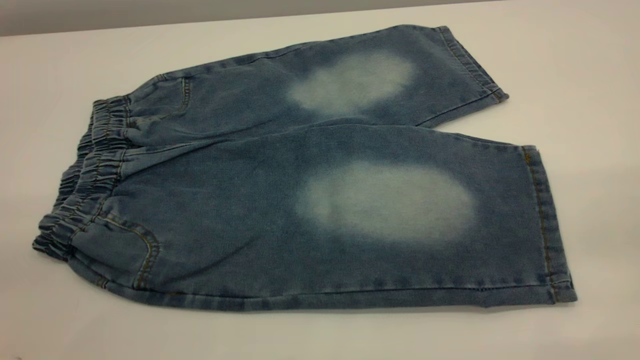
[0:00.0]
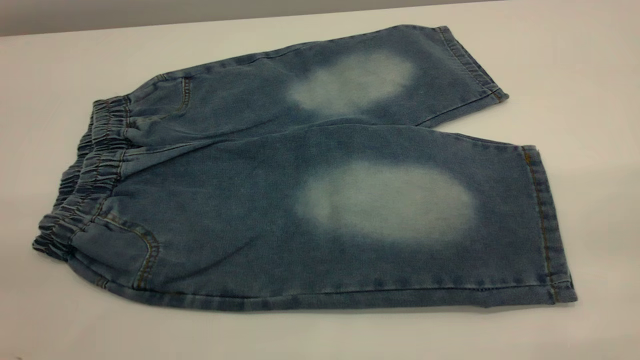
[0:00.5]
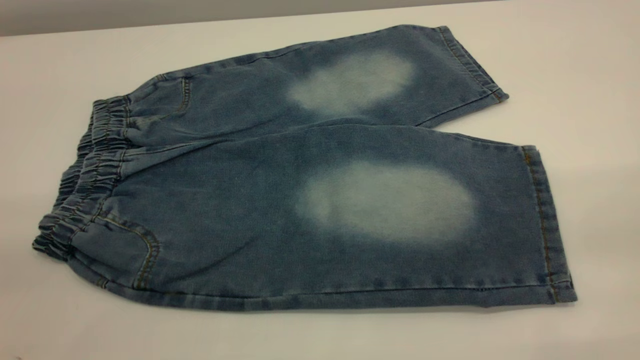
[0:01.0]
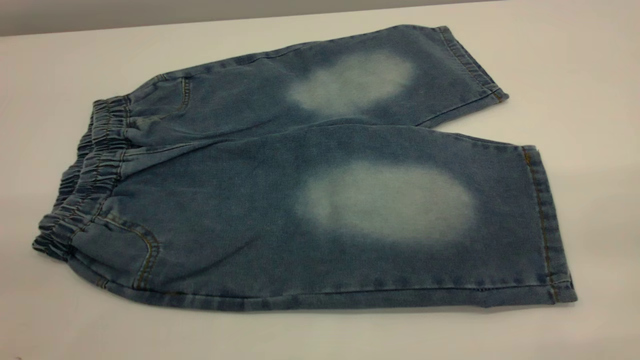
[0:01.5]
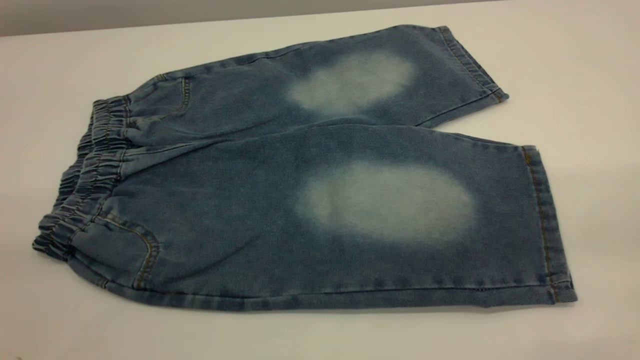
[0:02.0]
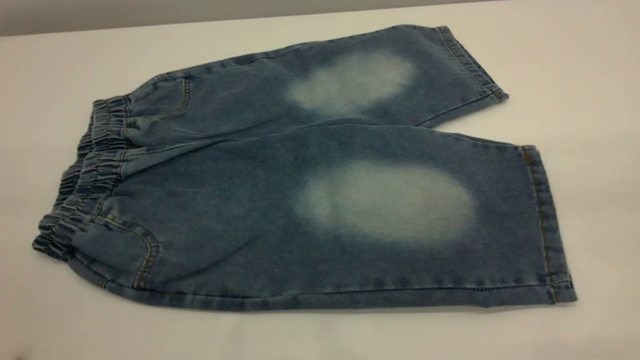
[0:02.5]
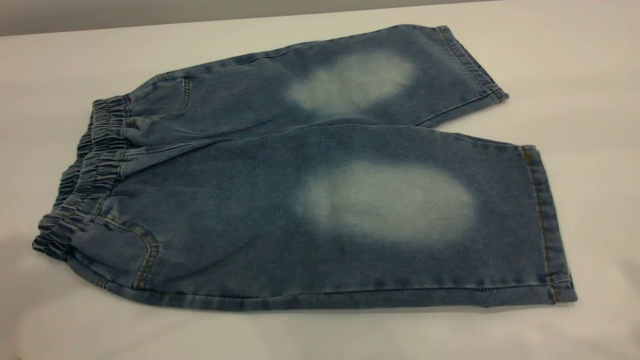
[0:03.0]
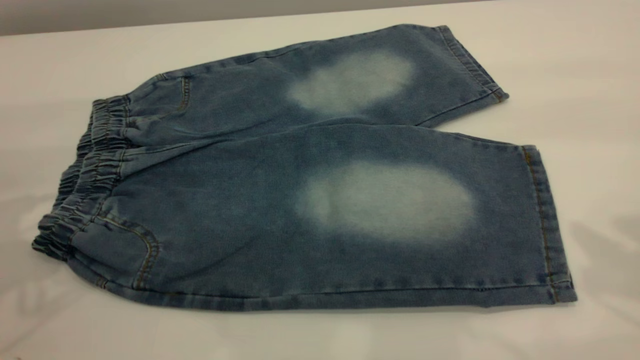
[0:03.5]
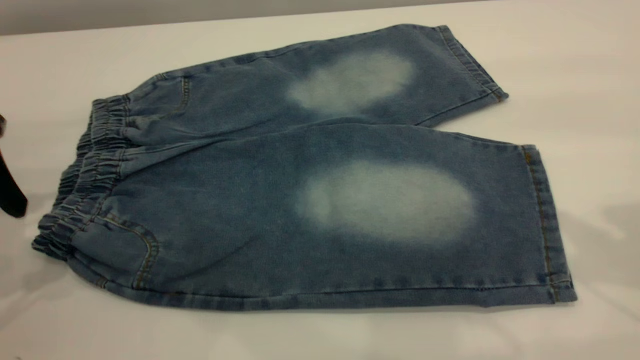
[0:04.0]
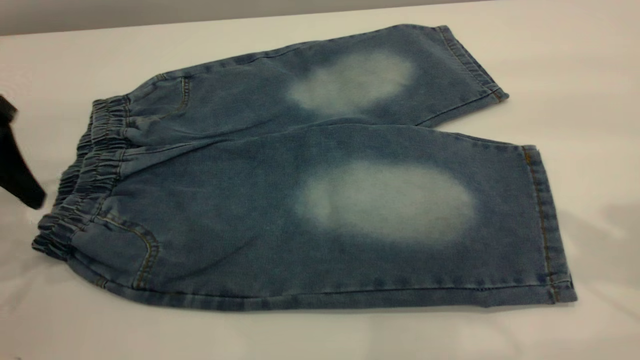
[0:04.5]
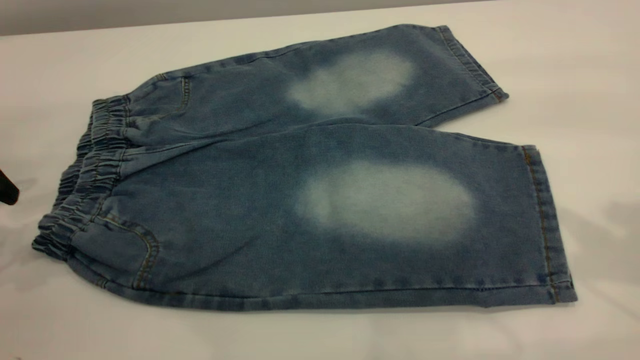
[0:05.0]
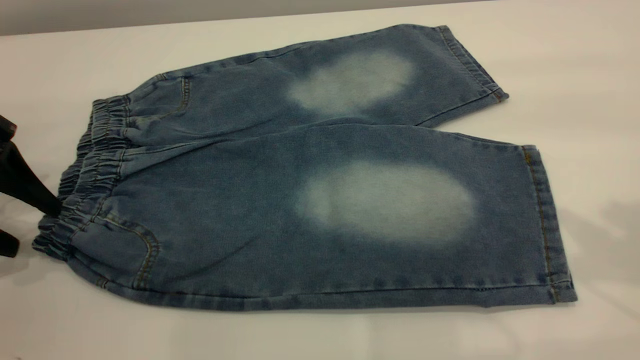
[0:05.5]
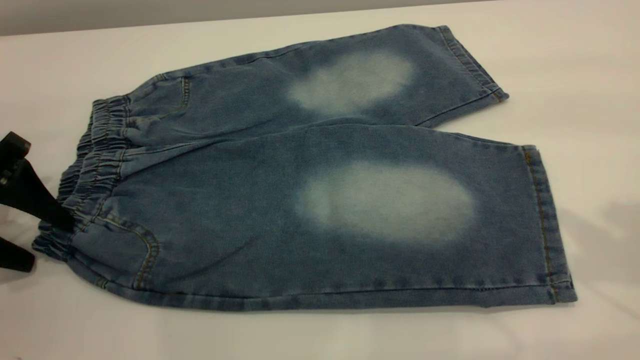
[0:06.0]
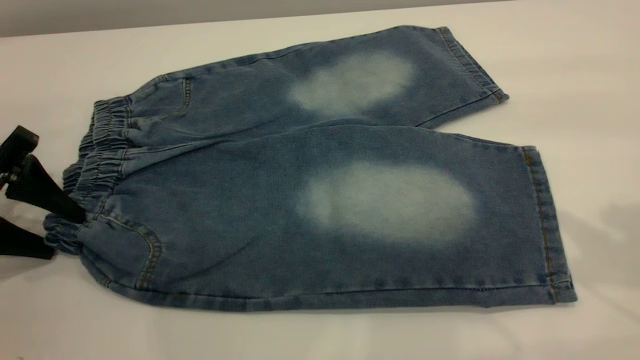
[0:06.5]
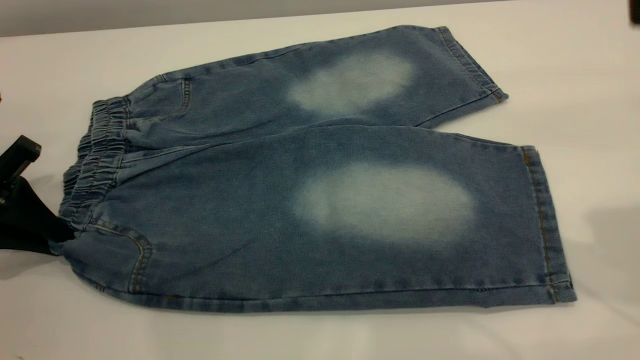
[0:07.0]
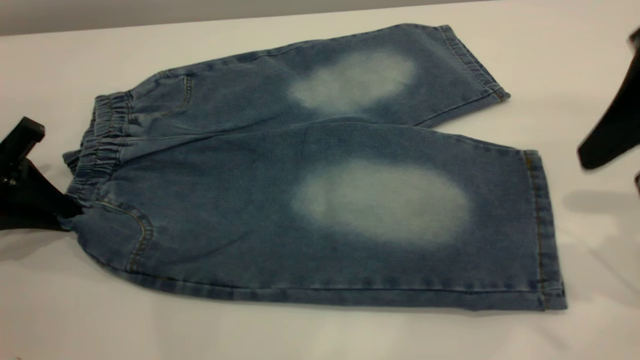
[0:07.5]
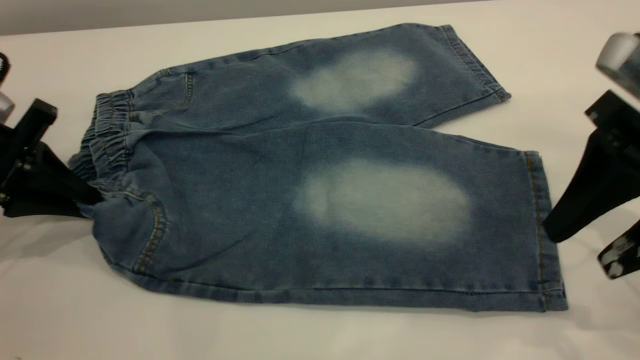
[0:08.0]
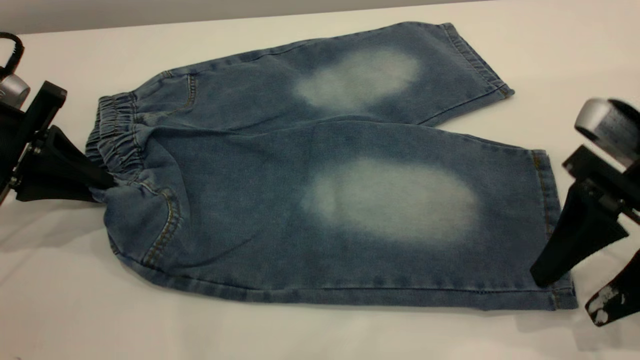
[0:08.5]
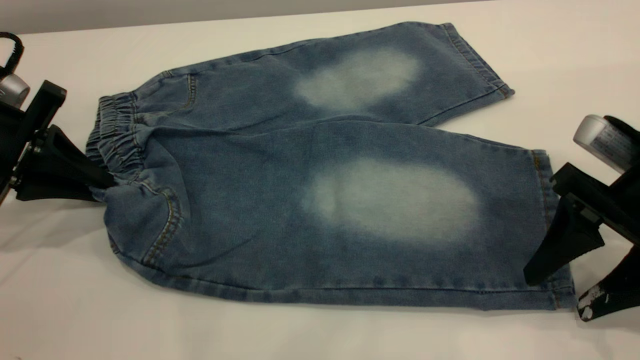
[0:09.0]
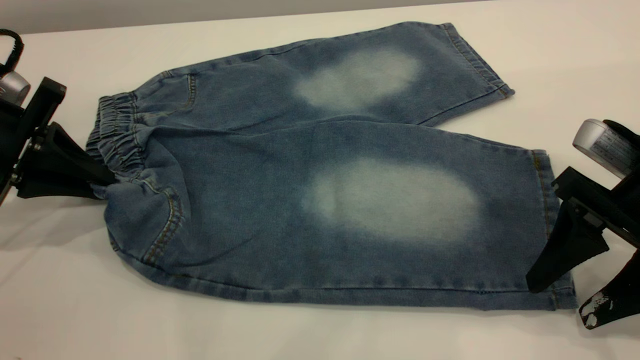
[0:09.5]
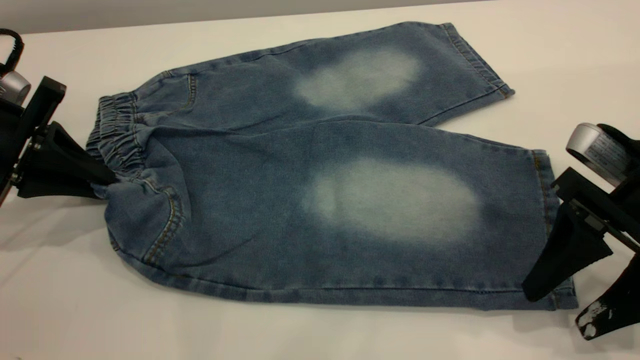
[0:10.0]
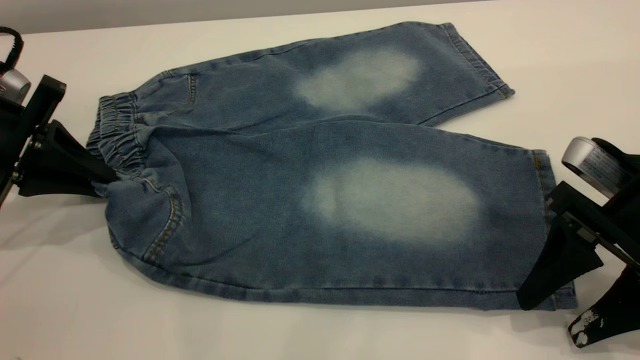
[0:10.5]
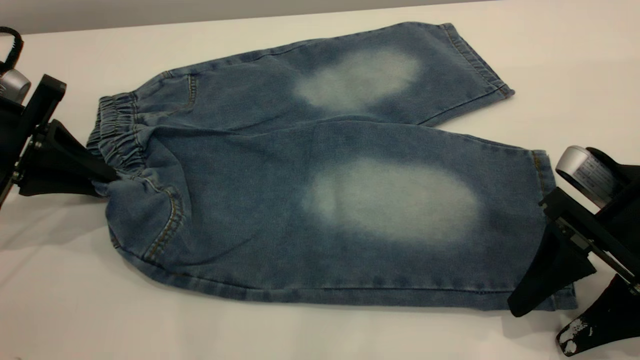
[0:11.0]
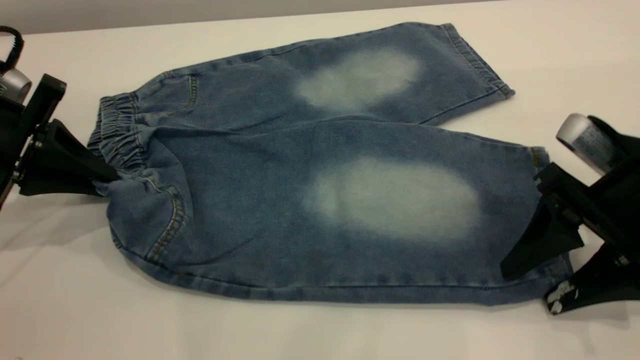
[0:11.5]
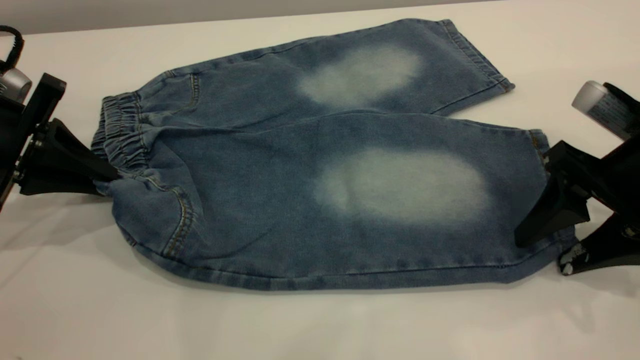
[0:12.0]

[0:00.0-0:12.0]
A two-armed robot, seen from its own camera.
0:02.0 to 0:04.0: The left gripper goes about 30 cm forward and downward.
0:04.0 to 0:06.0: The left gripper moves downward, some 5 cm.
0:06.0 to 0:08.0: The right gripper is displaced downward by some 15 cm; the left gripper closes up.
0:08.0 to 0:10.0: The right gripper shifts about 5 cm downward.
0:10.0 to 0:12.0: The grippers make only small movements.

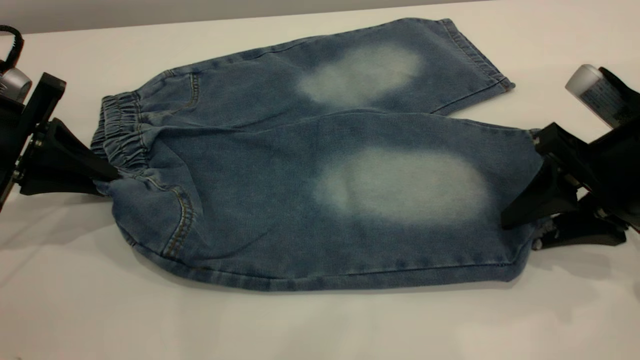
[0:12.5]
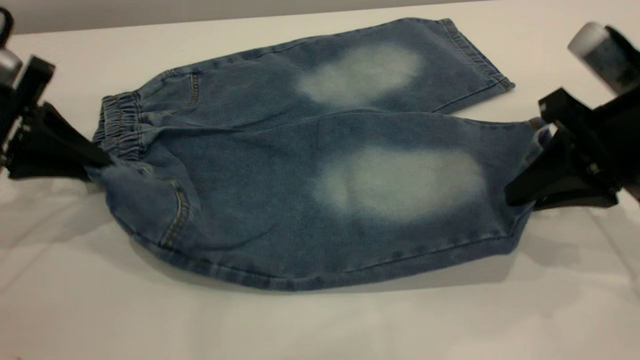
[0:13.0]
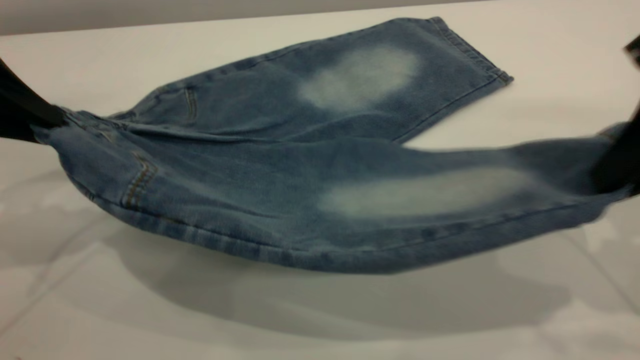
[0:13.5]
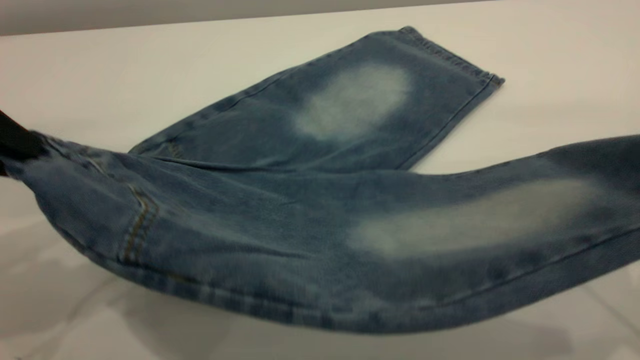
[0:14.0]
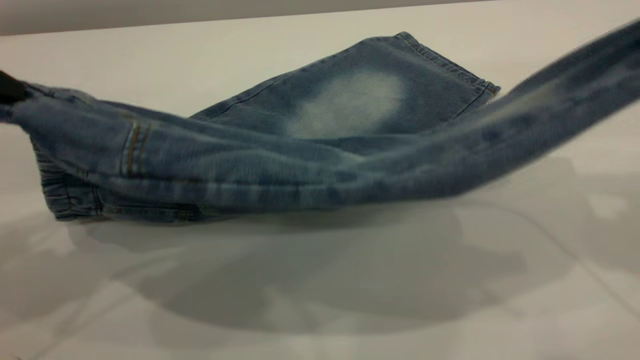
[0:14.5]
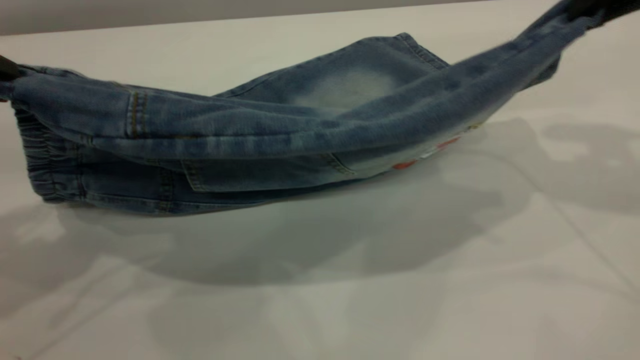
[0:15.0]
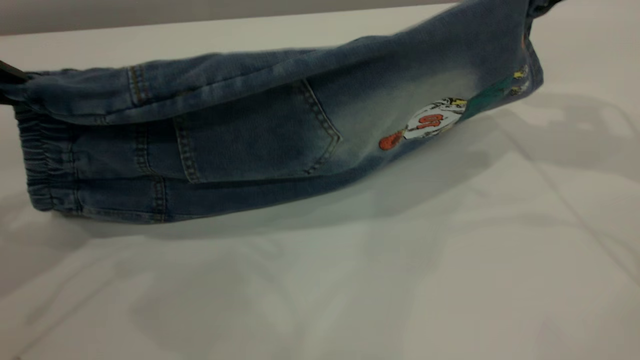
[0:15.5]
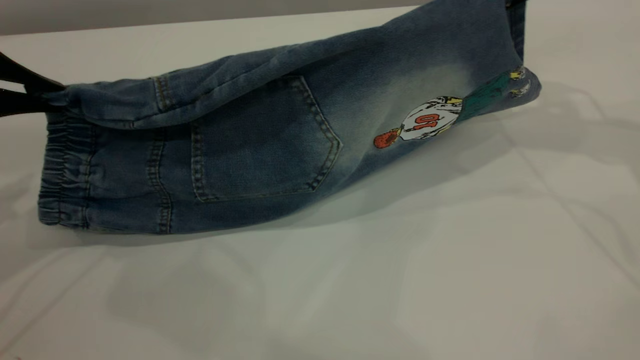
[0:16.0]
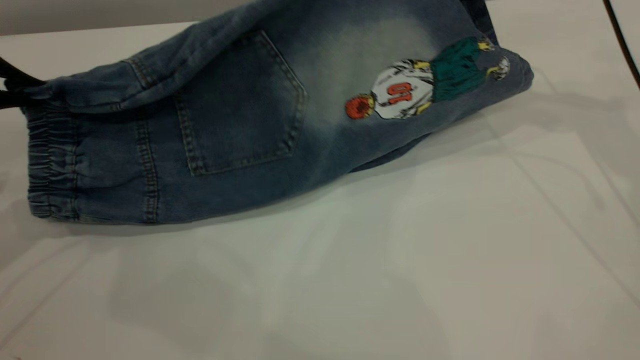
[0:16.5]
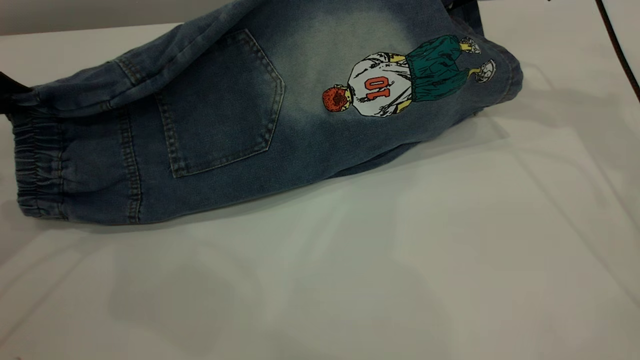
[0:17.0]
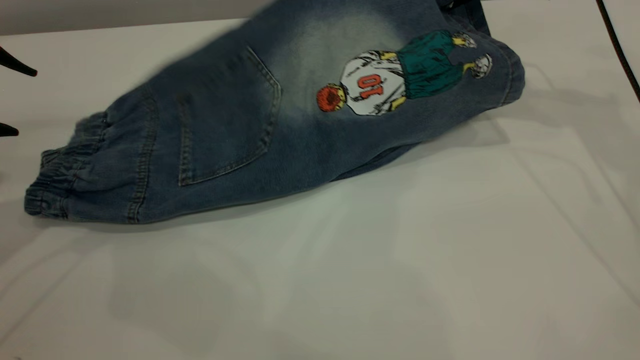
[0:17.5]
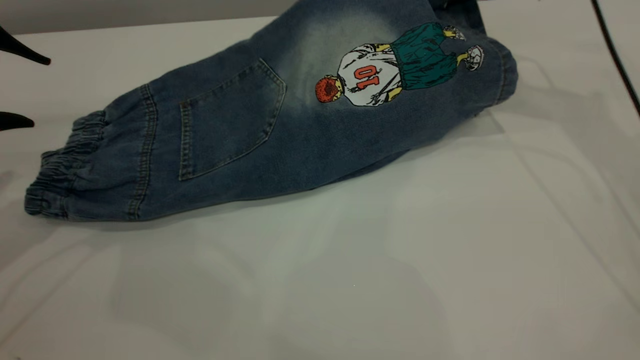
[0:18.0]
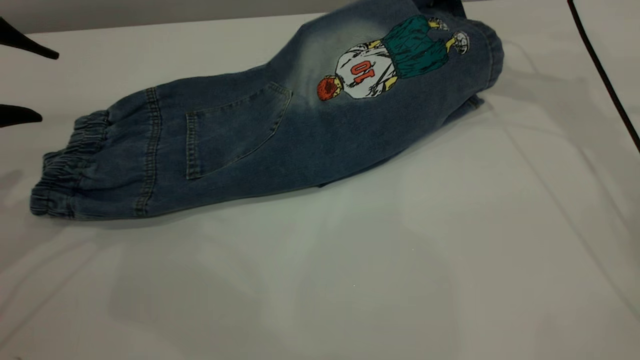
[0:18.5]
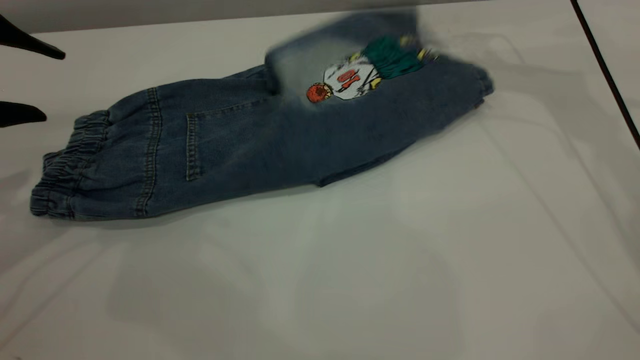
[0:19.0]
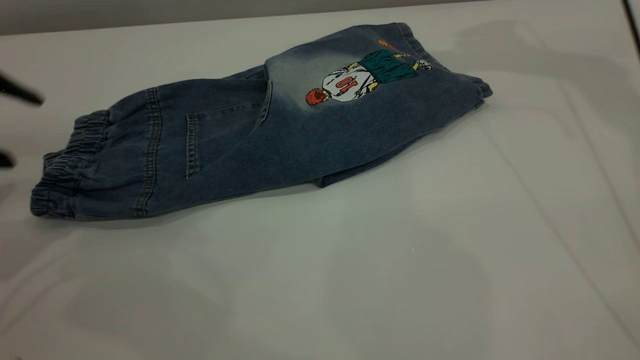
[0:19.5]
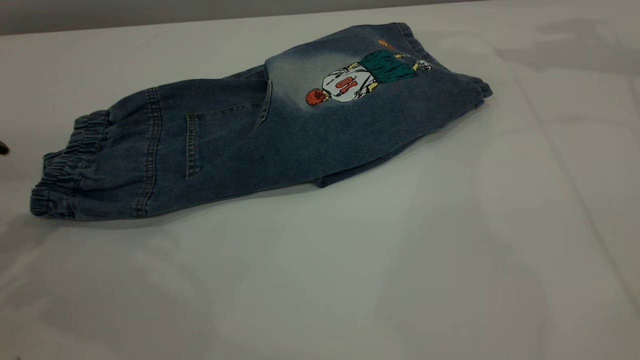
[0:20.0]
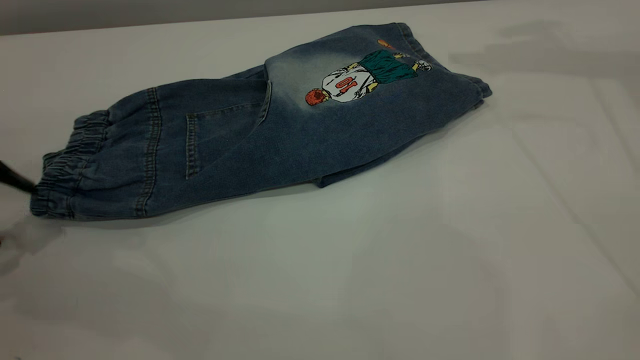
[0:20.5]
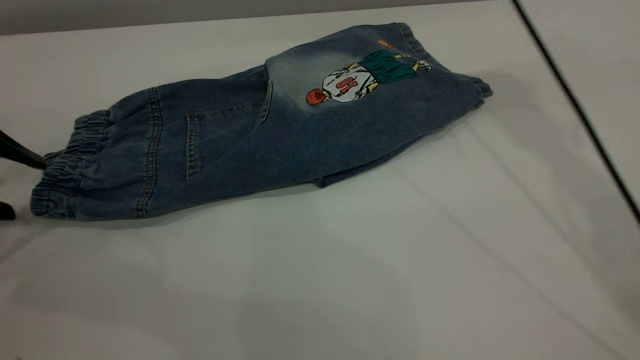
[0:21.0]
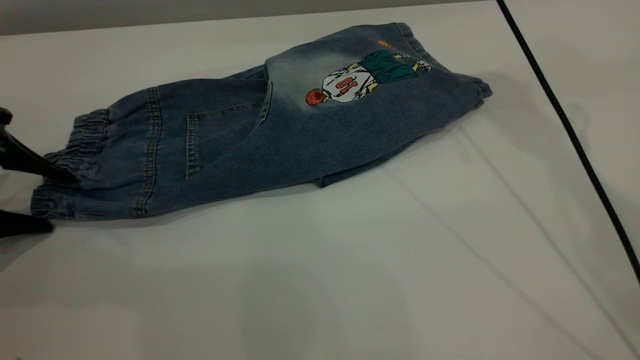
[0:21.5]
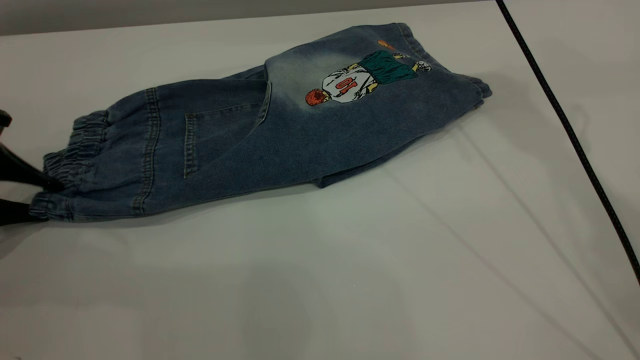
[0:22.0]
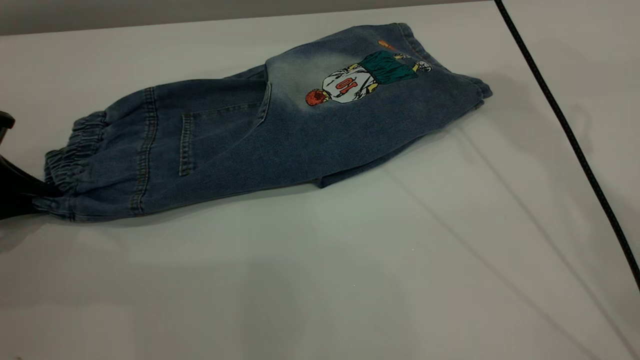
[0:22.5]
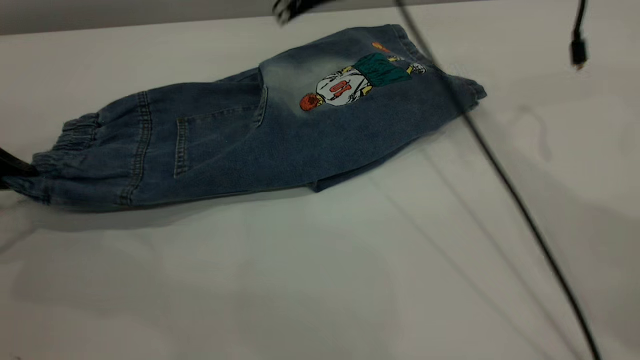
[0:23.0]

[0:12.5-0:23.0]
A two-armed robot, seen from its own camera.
Step, 0:12.5 to 0:19.5: Fold the bottom of the pants upward.
0:12.5 to 0:14.5: The right gripper moves upward, some 20 cm, and closes its fingers. The left gripper heads upward and backward, covering approximately 15 cm.
0:14.5 to 0:16.5: The left gripper moves downward and forward, about 10 cm. Meanwhile the right gripper is displaced forward by some 20 cm.
0:16.5 to 0:19.0: The left gripper opens. Meanwhile the right gripper shifts about 5 cm forward, and opens its fingers.
0:19.0 to 0:21.0: The left gripper heads downward and to the left, covering about 10 cm. Meanwhile the right gripper shifts roughly 15 cm to the left and upward.
0:21.0 to 0:23.0: The left gripper closes its fingers. The right gripper shifts about 10 cm downward and to the left.
